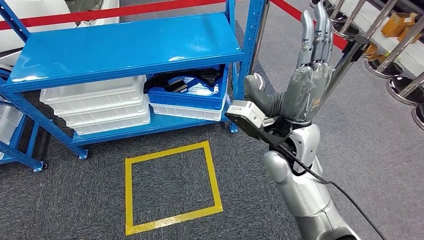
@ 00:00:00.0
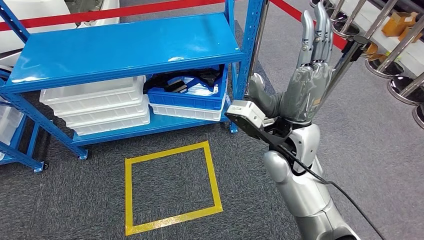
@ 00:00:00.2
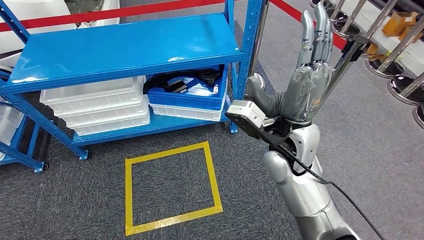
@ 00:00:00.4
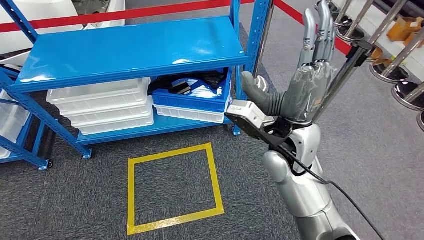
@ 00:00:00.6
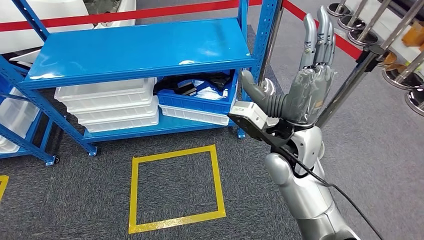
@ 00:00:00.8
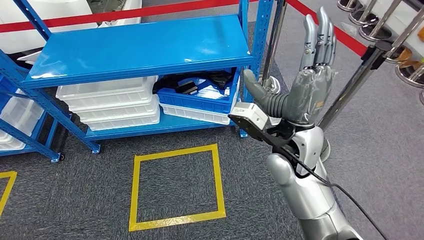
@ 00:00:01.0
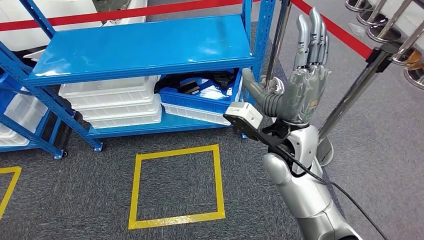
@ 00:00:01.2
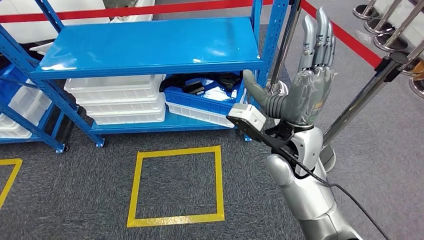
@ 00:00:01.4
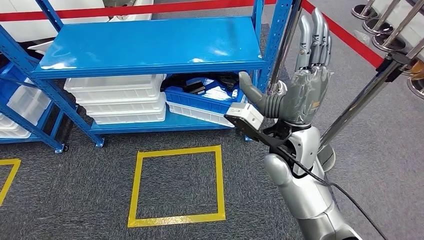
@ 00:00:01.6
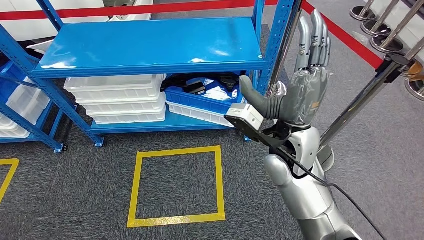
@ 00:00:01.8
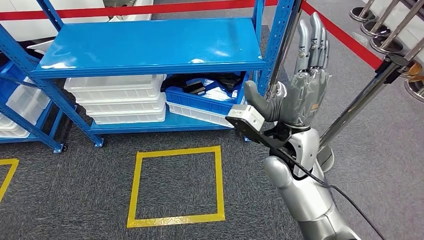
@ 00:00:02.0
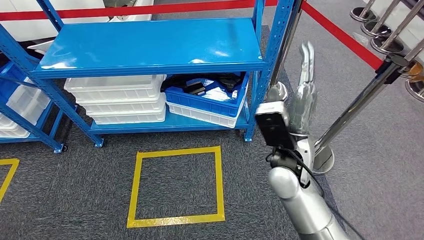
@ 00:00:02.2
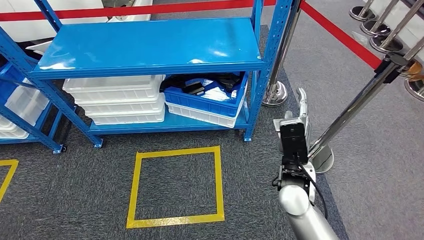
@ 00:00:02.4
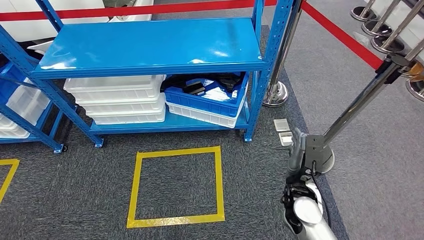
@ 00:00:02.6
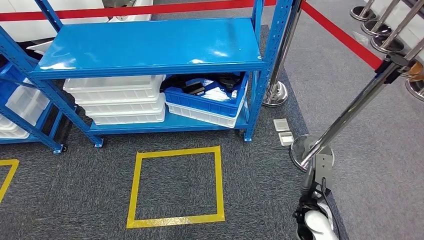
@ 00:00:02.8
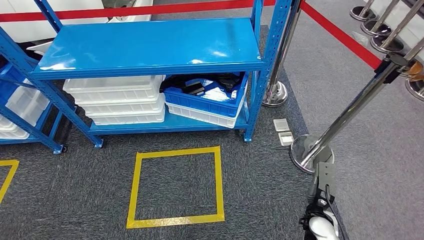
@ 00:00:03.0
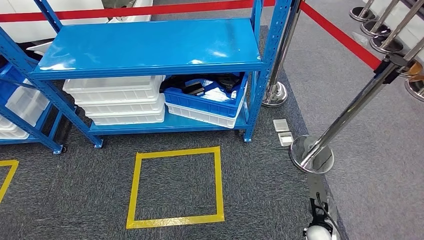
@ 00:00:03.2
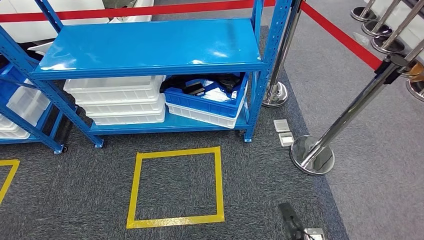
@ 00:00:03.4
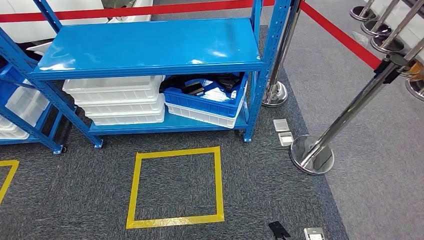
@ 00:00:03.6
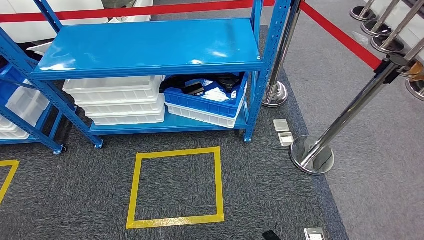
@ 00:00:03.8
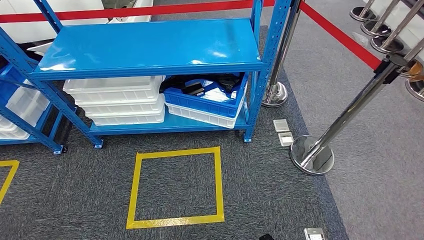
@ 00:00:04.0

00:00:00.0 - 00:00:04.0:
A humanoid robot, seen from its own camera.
Step, 00:00:00.0 - 00:00:04.0: Move to the initial position of the shelf.
00:00:01.4 - 00:00:02.6: The right hand shifts approximately 20 cm downward.
00:00:02.6 - 00:00:04.0: The right hand goes roughly 30 cm downward and backward.
